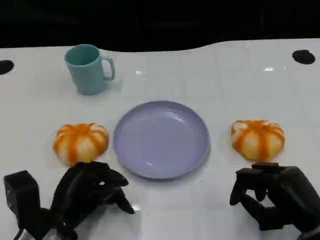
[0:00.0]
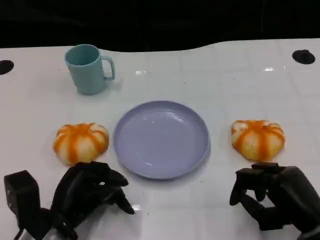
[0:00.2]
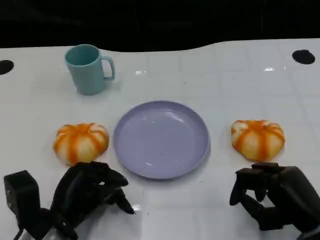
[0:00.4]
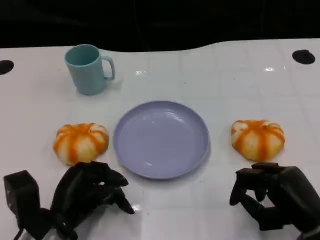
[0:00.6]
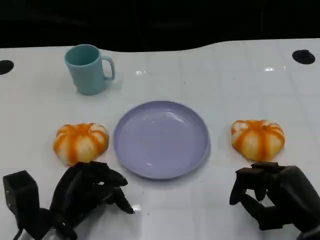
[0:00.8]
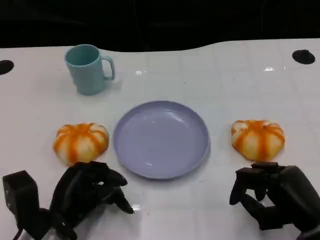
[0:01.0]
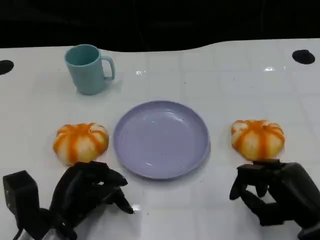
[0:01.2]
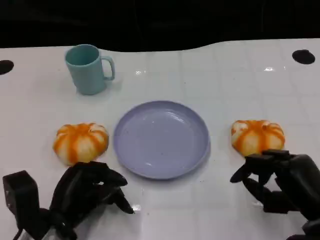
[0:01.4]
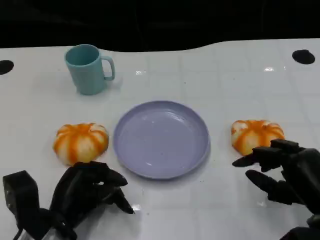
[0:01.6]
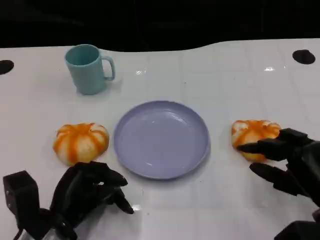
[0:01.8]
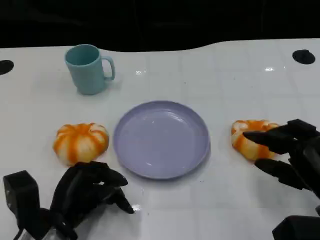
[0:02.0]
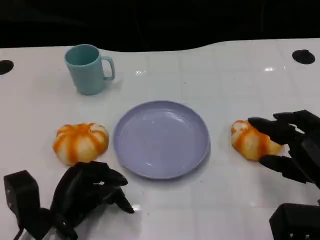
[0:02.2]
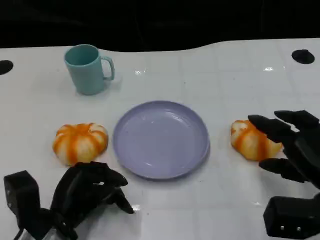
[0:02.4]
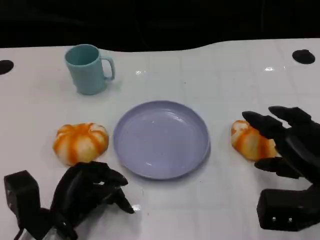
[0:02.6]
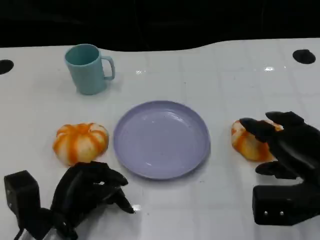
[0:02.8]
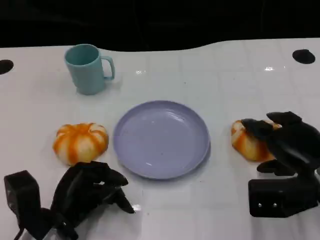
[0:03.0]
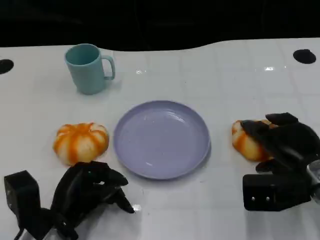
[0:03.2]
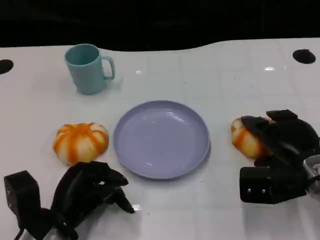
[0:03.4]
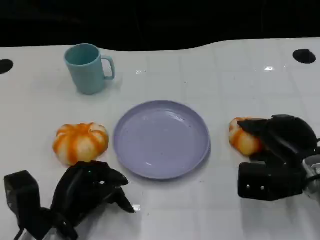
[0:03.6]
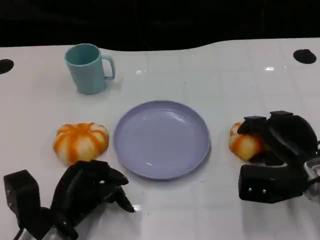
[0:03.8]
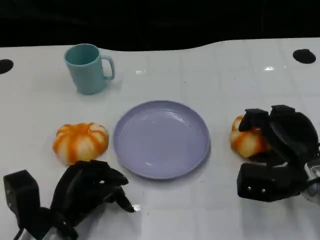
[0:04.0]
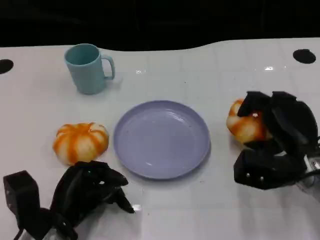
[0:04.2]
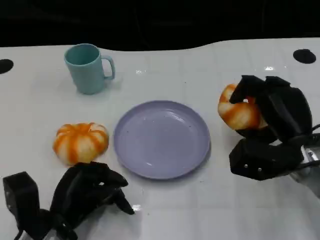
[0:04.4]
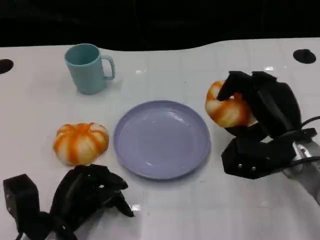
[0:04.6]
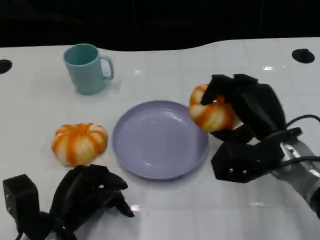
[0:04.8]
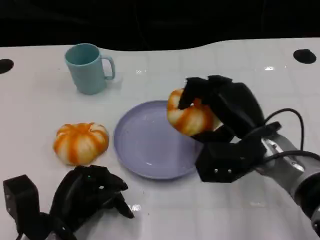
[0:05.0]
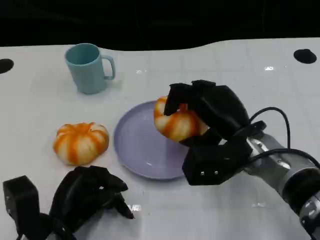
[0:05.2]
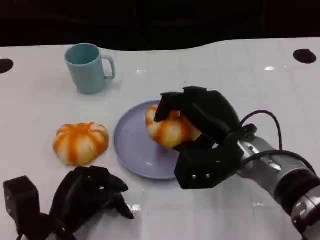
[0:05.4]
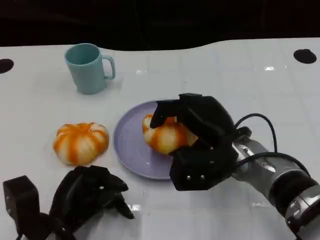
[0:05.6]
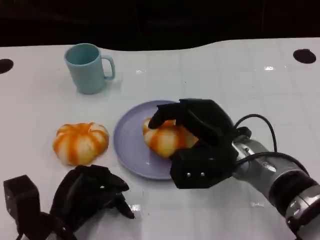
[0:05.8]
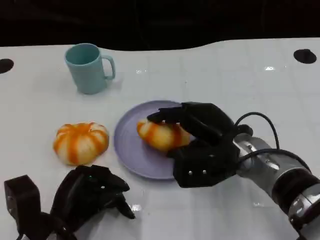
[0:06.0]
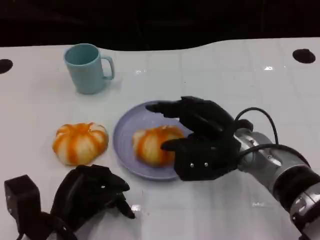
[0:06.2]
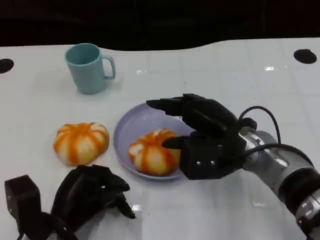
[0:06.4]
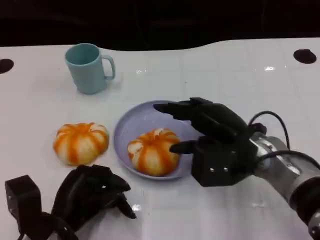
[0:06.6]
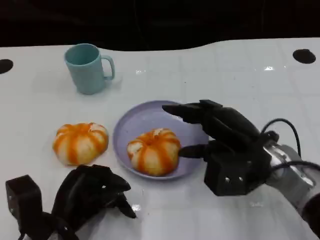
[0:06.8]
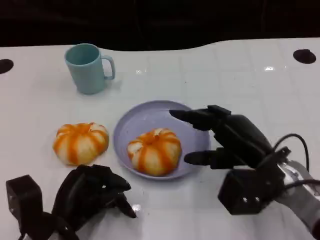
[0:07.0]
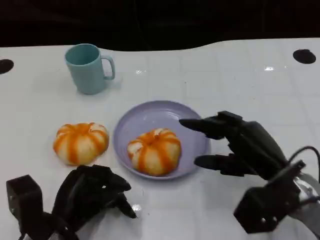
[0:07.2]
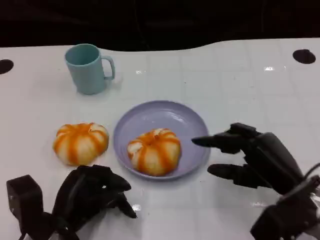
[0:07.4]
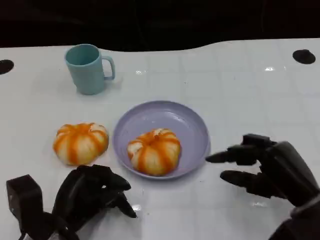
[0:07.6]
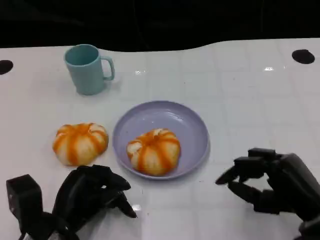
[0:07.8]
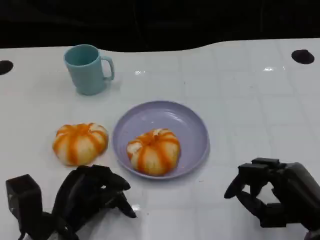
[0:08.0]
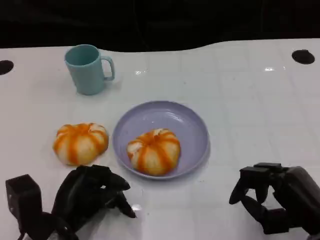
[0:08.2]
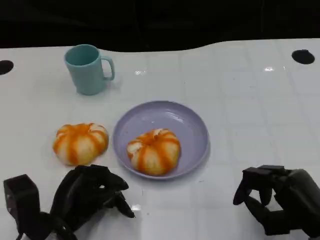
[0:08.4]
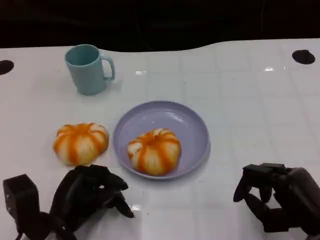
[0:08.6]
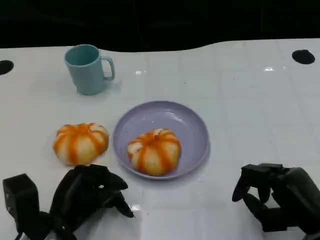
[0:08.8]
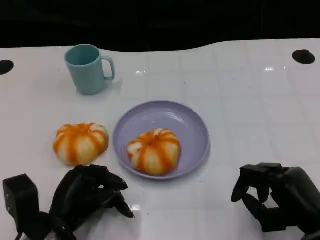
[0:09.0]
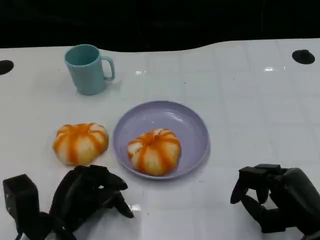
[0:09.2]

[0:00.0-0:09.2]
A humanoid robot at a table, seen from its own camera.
Task of the whole recording: Grasp the bread from the table and place it into the plate.
0:00.0 to 0:01.6: There are only small adjustments of the hands.
0:01.6 to 0:03.0: The right hand is displaced forward by some 5 cm.
0:03.0 to 0:04.6: The right hand heads to the left, covering about 5 cm.
0:04.6 to 0:06.2: The right hand travels to the left by approximately 5 cm.
0:06.2 to 0:07.6: The right hand shifts approximately 15 cm to the right and backward.
0:07.6 to 0:09.2: There are only small adjustments of the hands.

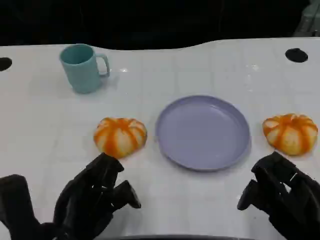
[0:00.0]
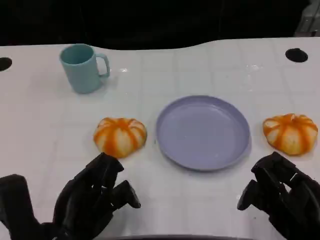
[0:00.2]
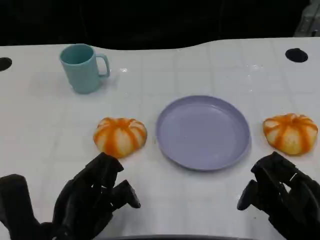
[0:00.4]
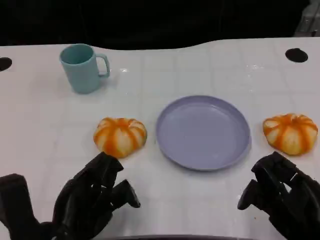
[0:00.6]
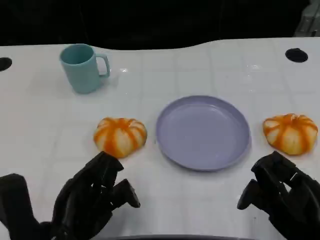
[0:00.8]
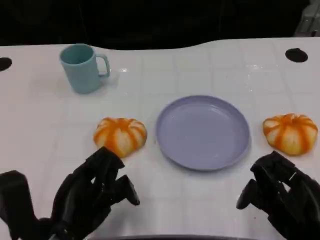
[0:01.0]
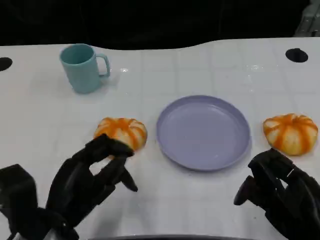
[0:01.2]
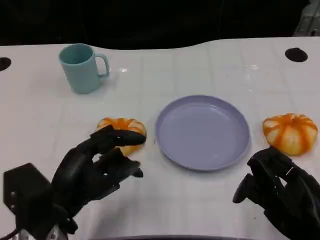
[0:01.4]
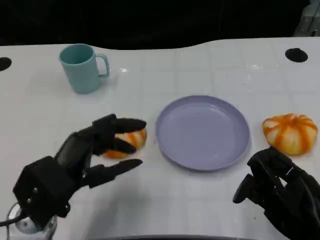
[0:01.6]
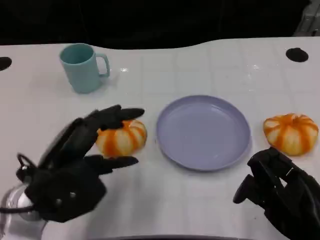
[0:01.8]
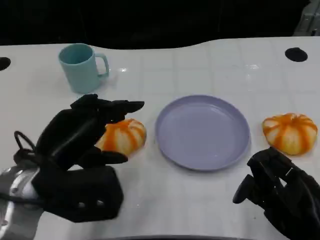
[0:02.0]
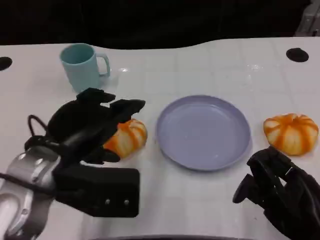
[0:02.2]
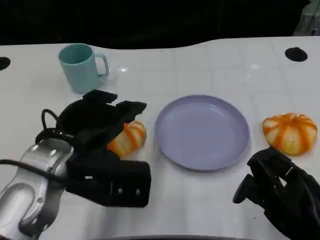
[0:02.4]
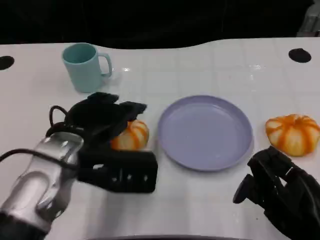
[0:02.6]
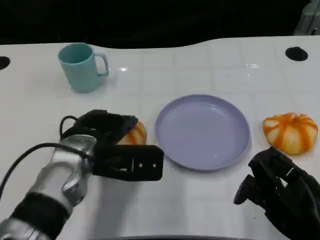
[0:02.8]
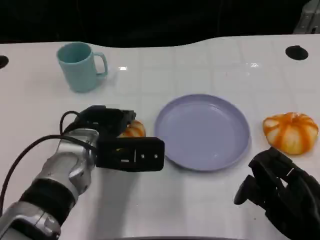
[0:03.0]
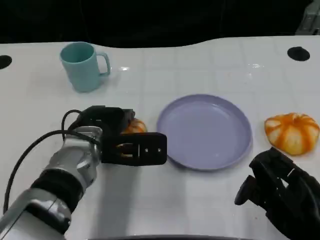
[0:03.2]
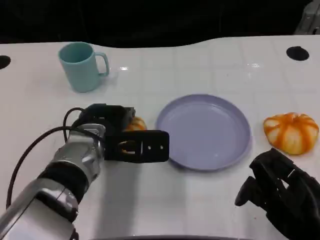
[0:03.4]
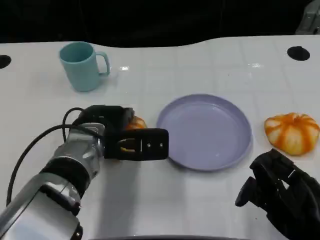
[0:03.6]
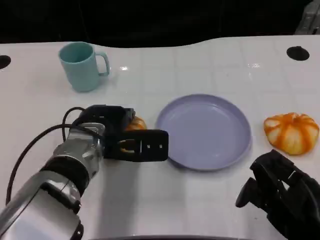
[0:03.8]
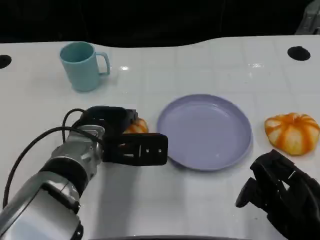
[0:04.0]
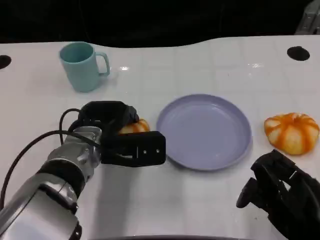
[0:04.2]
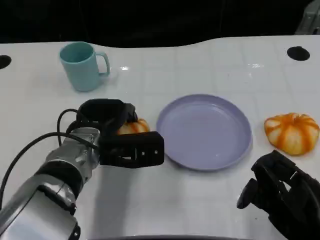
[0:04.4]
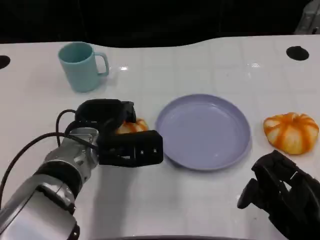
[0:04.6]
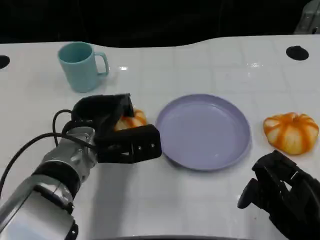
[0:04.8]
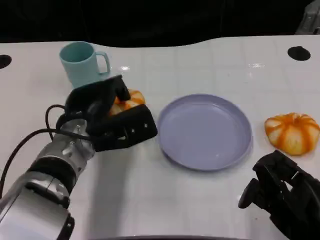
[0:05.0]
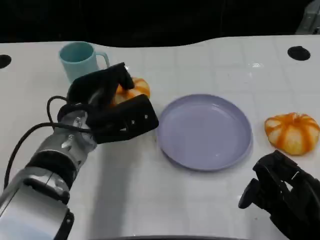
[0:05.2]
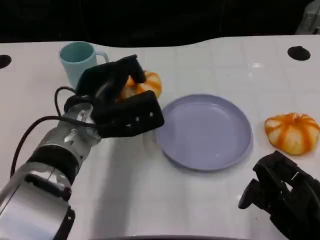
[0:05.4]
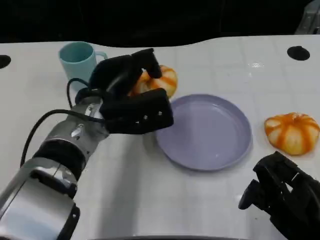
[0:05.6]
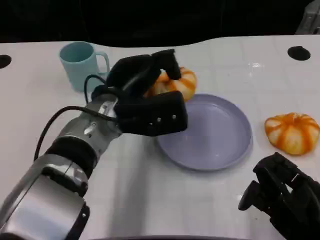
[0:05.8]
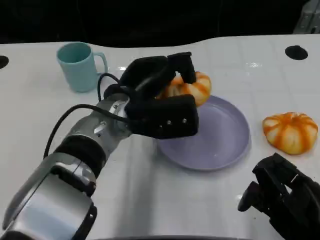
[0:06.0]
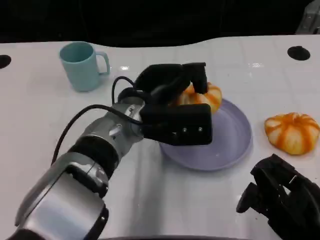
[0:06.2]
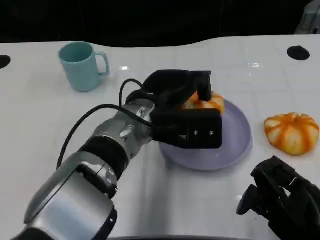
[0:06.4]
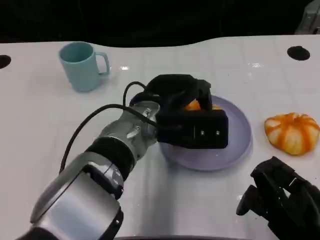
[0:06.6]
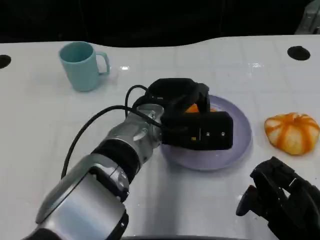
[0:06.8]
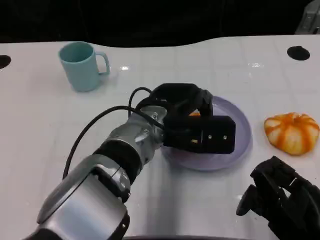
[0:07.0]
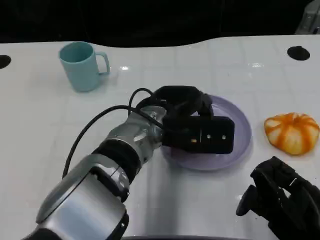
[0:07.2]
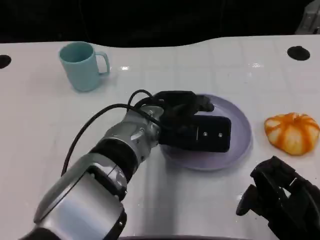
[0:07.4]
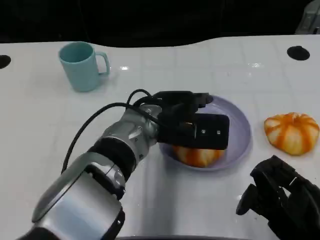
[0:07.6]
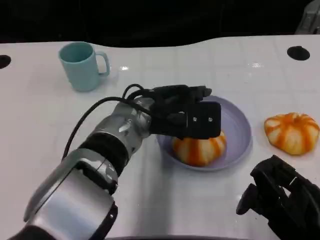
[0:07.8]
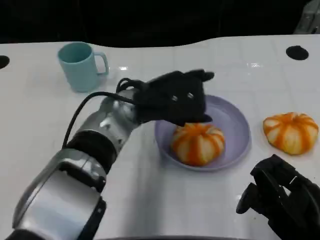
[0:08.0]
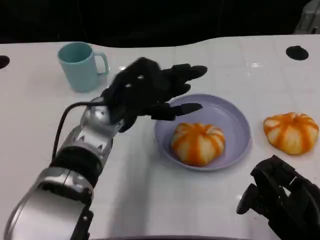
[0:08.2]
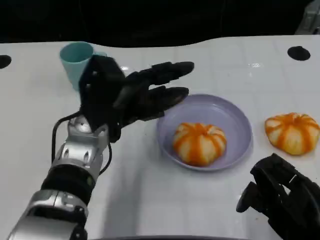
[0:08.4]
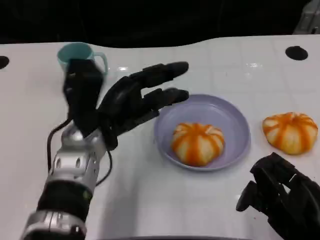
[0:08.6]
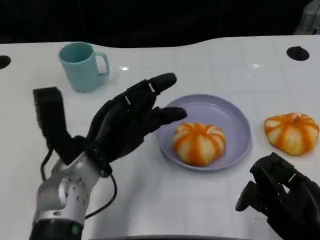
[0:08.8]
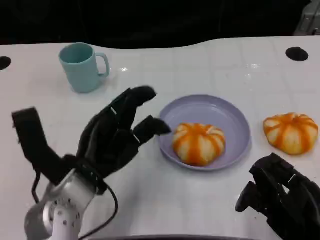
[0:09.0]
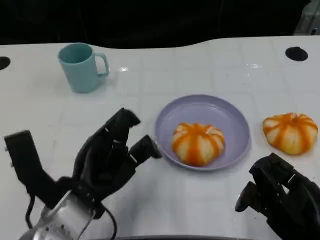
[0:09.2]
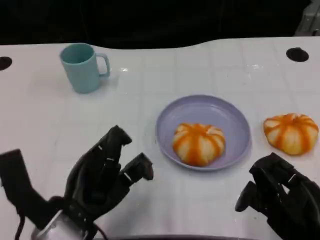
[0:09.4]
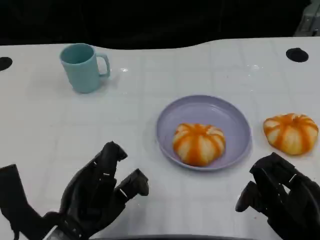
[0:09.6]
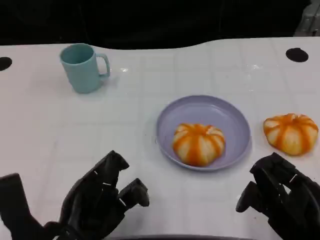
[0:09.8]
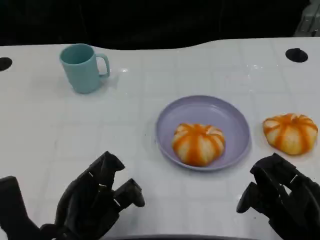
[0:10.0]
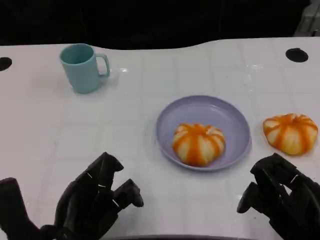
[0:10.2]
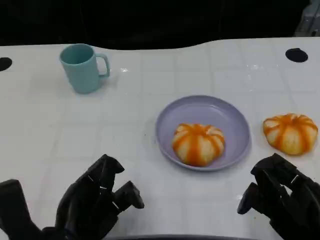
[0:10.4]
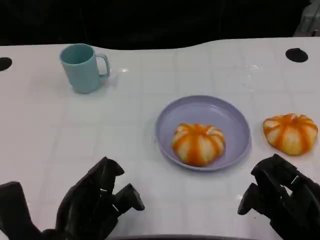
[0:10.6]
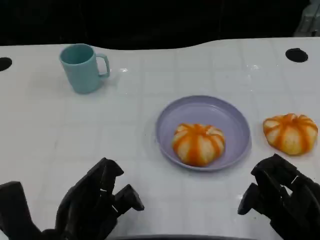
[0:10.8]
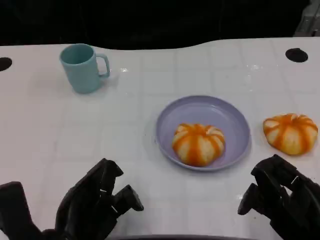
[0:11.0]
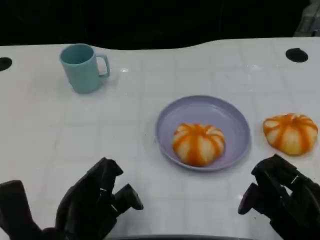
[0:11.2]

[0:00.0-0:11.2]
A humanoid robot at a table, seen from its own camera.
Task of the whole recording: Grasp the bread from the table and place it into the plate.
0:00.0 to 0:01.6: The left hand moves some 5 cm.
0:01.6 to 0:03.2: The left hand heads forward and to the right, covering some 15 cm.
0:03.2 to 0:04.8: There are only small adjustments of the hands.
0:04.8 to 0:06.4: The left hand is displaced to the right by roughly 10 cm.
0:08.0 to 0:09.6: The left hand moves backward, to the left and downward, some 20 cm.
0:09.6 to 0:11.2: The hands make only small movements.

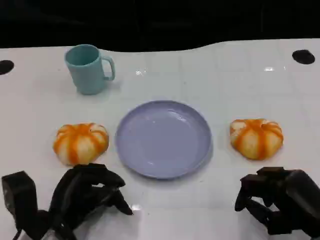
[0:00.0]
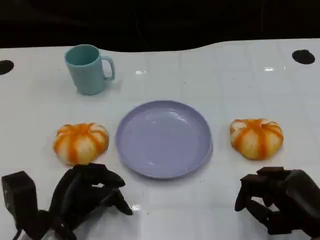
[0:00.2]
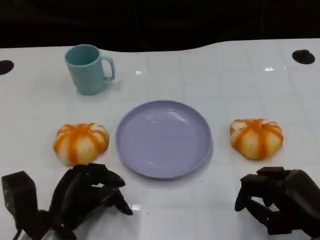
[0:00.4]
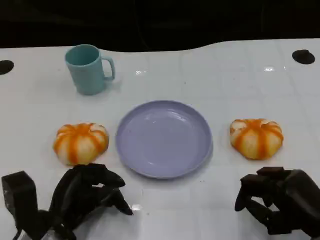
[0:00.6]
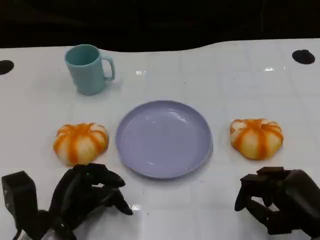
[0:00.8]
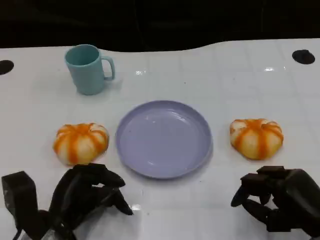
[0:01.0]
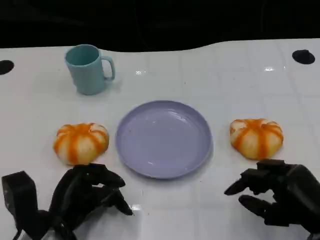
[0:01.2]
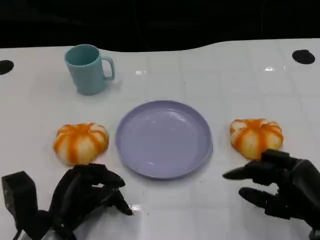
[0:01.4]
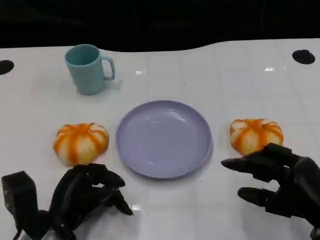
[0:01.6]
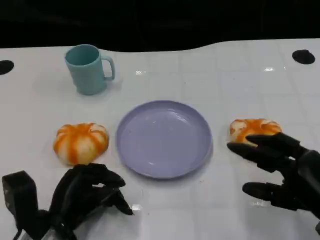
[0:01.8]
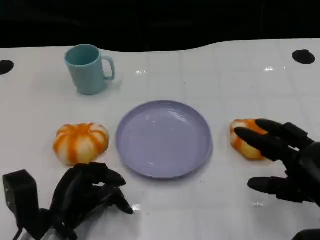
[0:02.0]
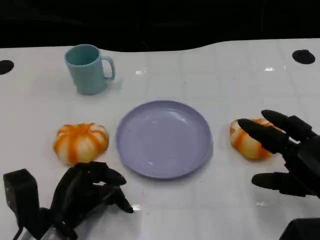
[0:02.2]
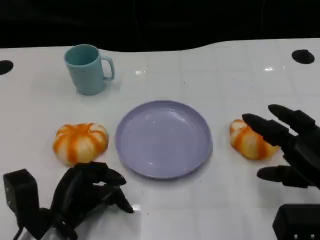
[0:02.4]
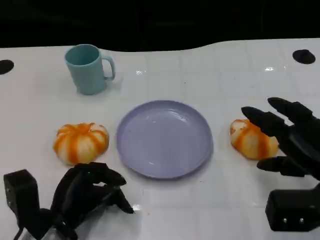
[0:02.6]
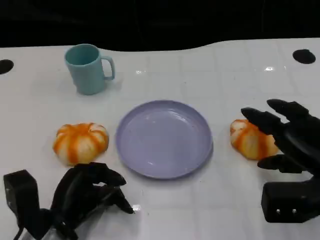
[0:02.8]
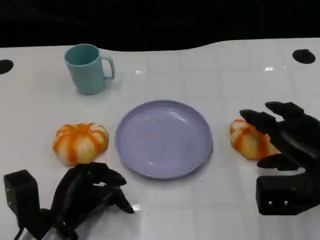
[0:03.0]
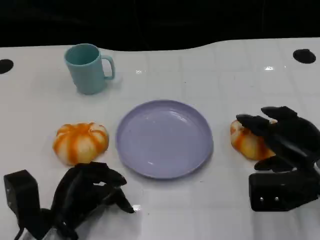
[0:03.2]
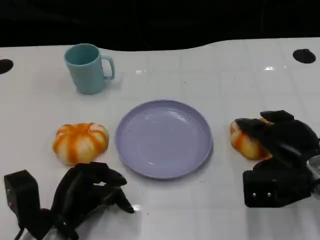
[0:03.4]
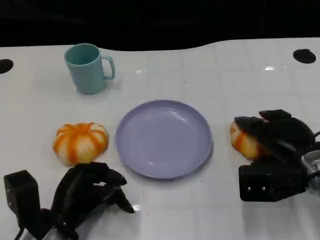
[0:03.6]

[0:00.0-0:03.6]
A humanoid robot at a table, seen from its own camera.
Task of the whole recording: Grasp the bread from the table and place it into the plate.
0:00.0 to 0:01.8: The hands move only a little.
0:01.8 to 0:03.6: The right hand goes roughly 10 cm forward.
